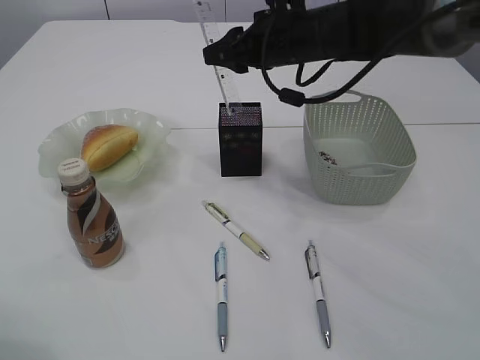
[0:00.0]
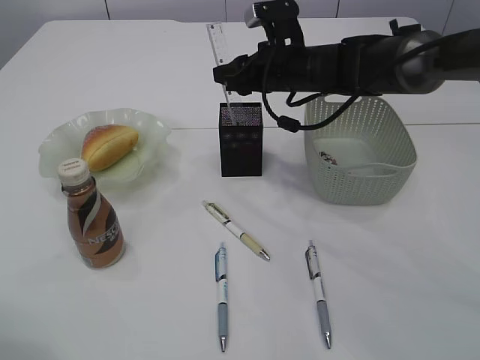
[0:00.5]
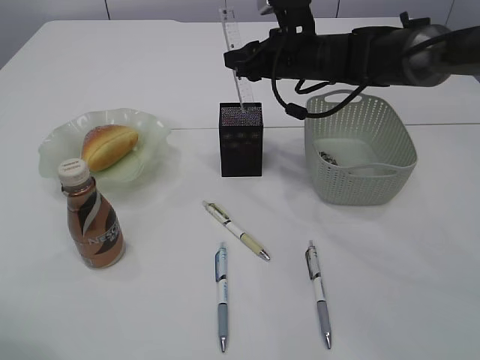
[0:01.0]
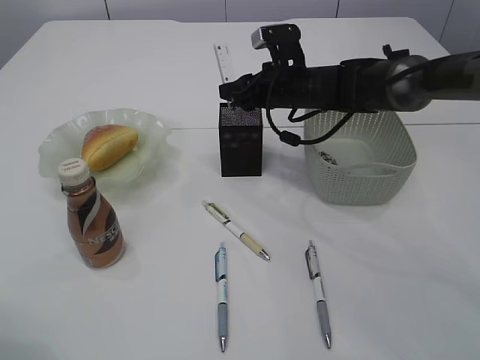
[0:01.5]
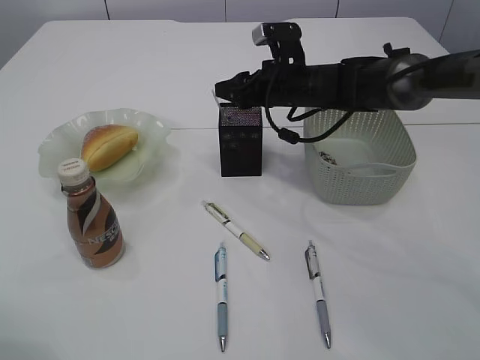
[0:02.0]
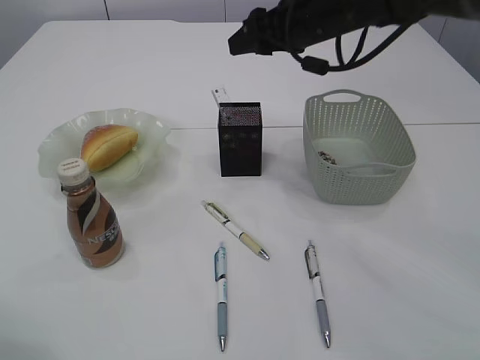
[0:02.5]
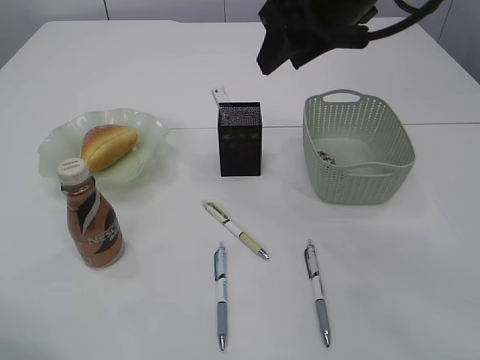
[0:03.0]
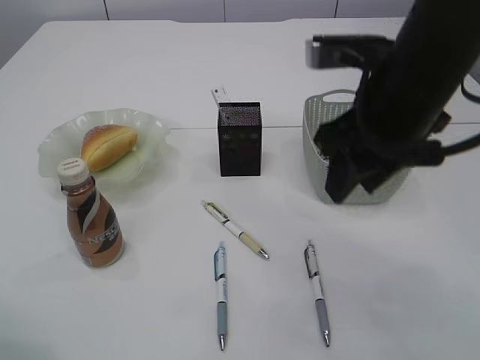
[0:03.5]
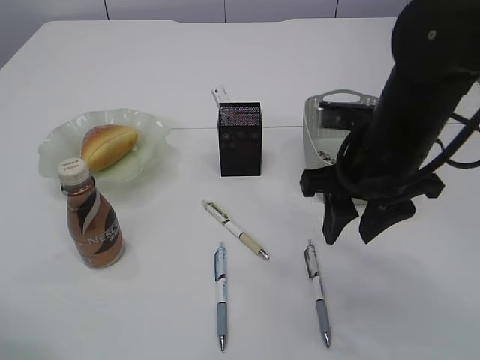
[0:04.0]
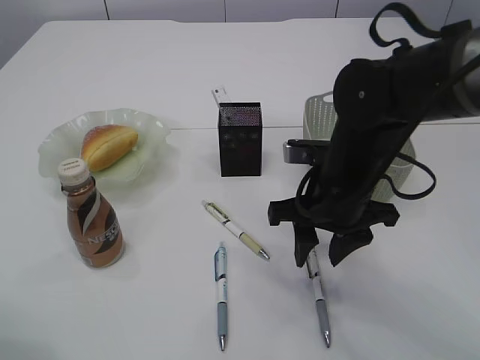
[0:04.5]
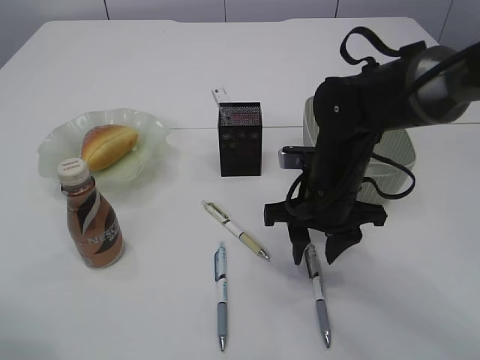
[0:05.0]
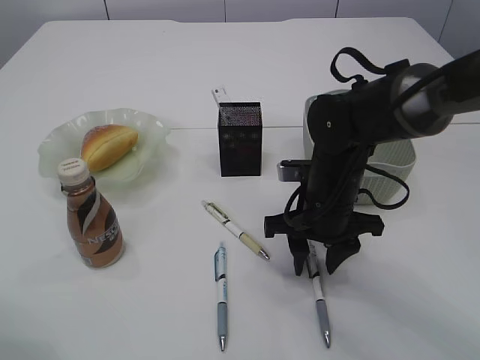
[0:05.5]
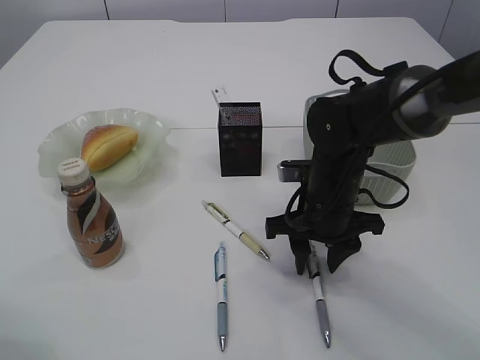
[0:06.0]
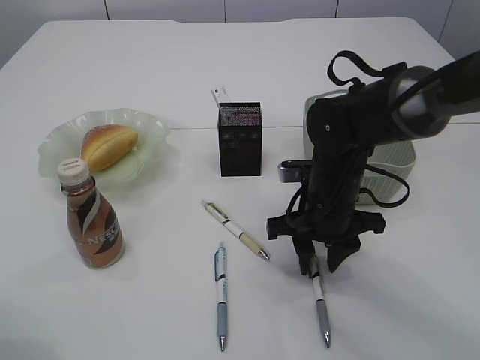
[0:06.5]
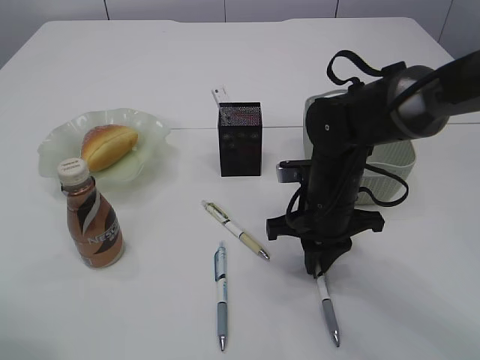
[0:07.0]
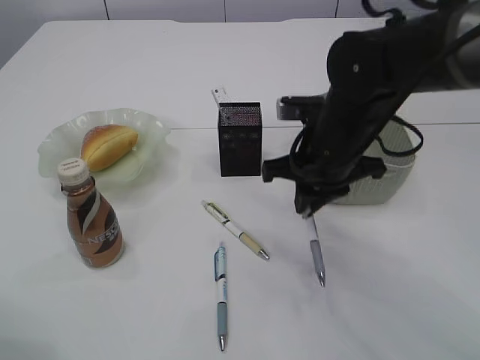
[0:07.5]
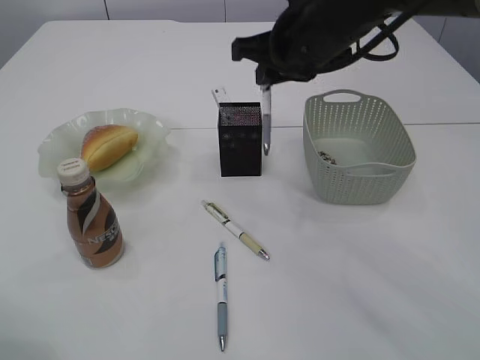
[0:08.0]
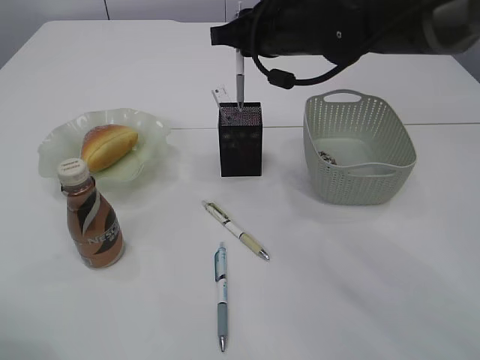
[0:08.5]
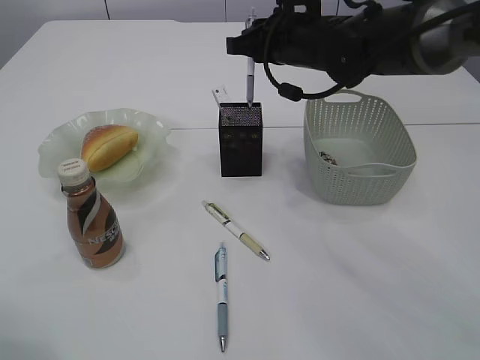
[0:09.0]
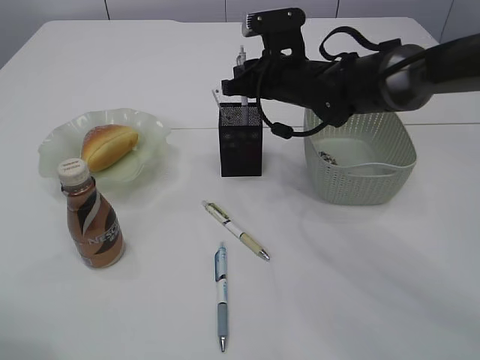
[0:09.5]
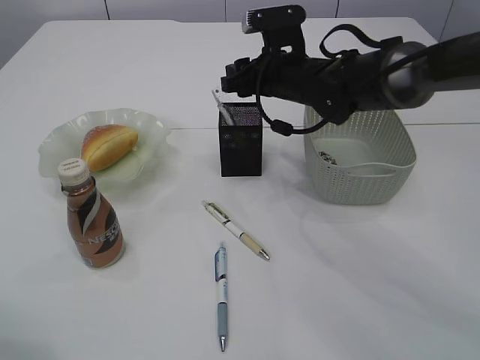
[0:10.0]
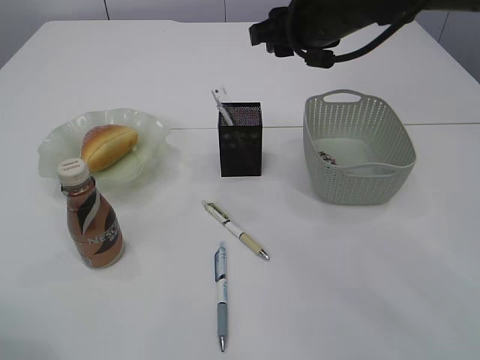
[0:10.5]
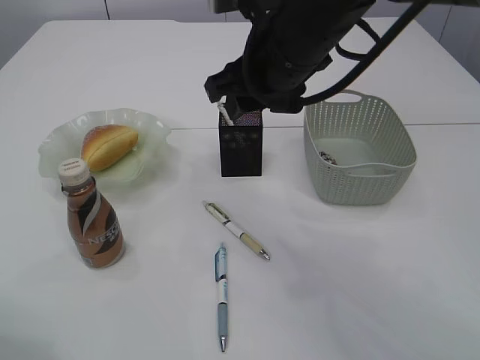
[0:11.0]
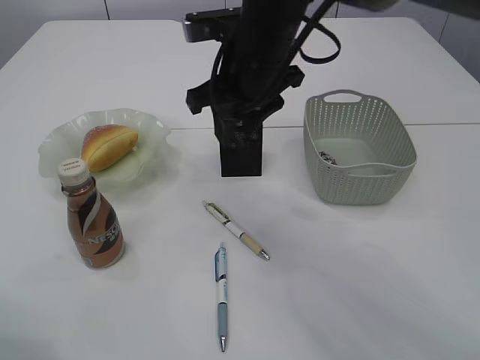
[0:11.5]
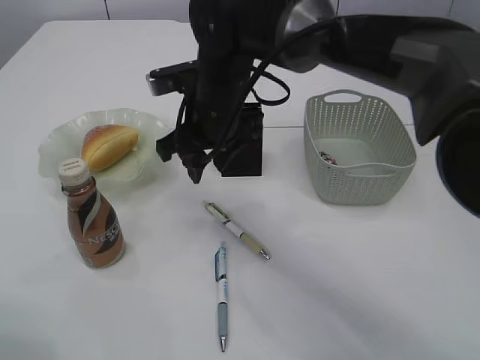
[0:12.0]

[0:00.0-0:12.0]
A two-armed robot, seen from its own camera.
Step, 0:00.0 to 0:02.5: Place the ruler into the pen holder.
Step, 0:03.0 to 0:07.5: Pick up the pen with right arm.
Step, 0:08.0 to 0:10.0: Place the pen into the pen holder.
0:00.0 to 0:02.0: The right gripper goes roughly 10 cm downward.
0:02.0 to 0:04.0: The right gripper moves backward, roughly 20 cm.
0:04.0 to 0:06.0: The right gripper shifts roughly 10 cm downward.
0:06.0 to 0:08.0: The right gripper shifts roughly 15 cm upward, and closes its fingers.
0:08.0 to 0:10.0: The right gripper is displaced downward and forward by about 10 cm, and opens up.
0:10.0 to 0:12.0: The right gripper heads to the left and backward, covering approximately 10 cm.

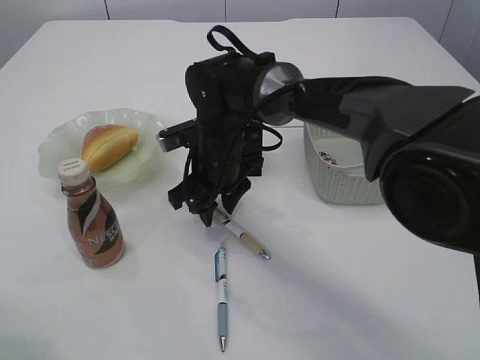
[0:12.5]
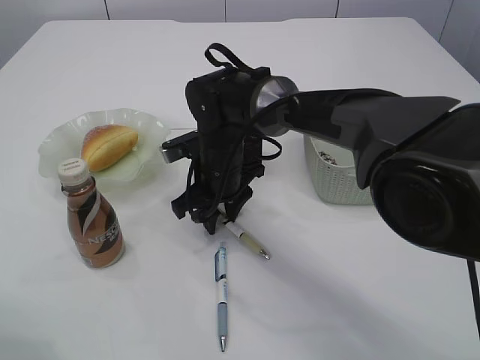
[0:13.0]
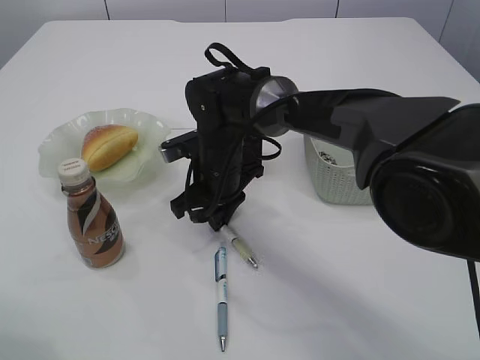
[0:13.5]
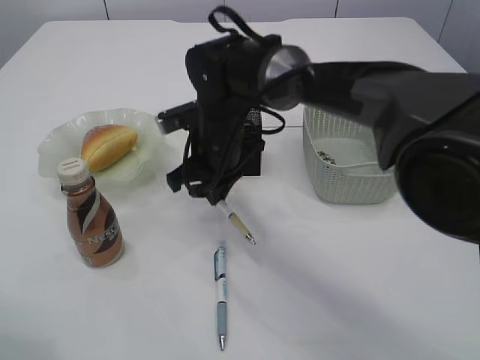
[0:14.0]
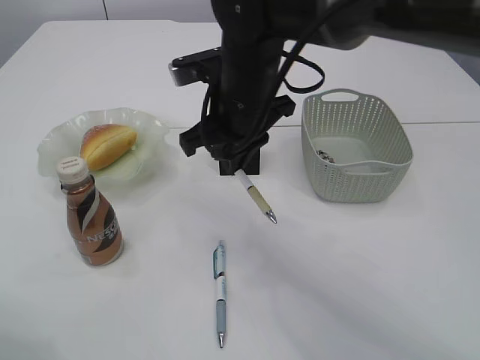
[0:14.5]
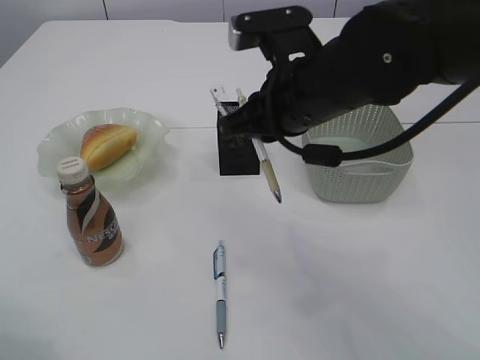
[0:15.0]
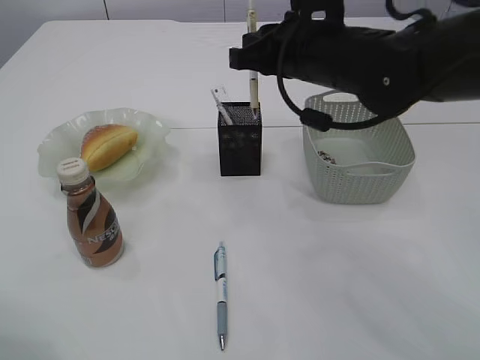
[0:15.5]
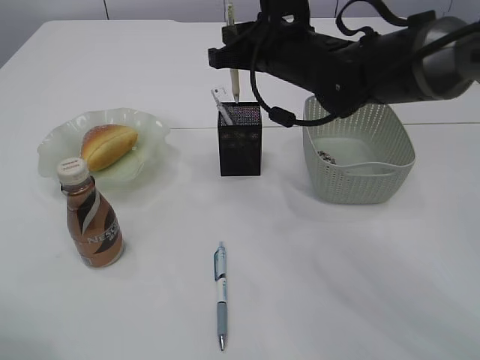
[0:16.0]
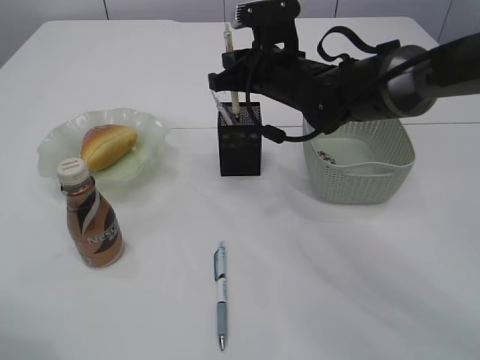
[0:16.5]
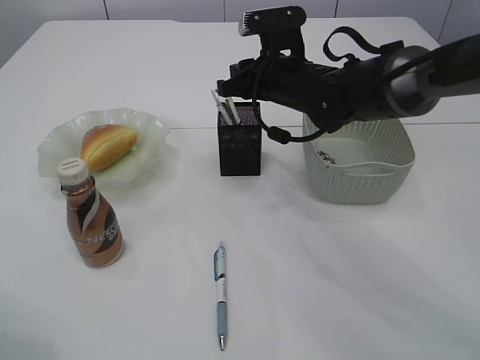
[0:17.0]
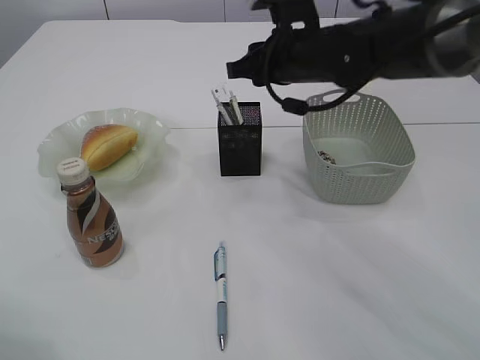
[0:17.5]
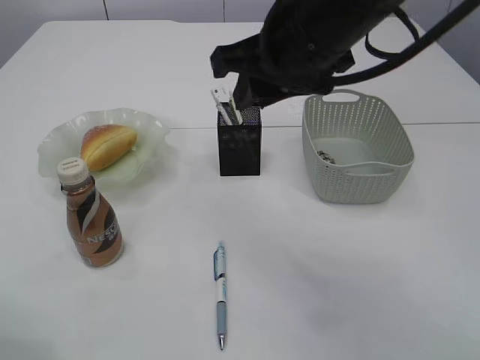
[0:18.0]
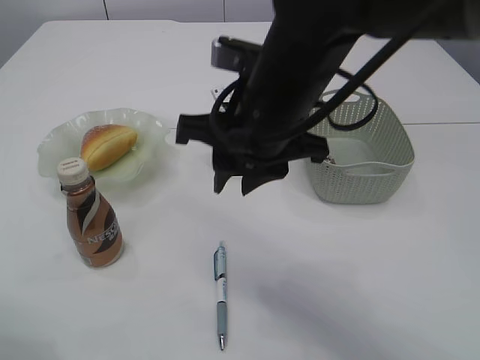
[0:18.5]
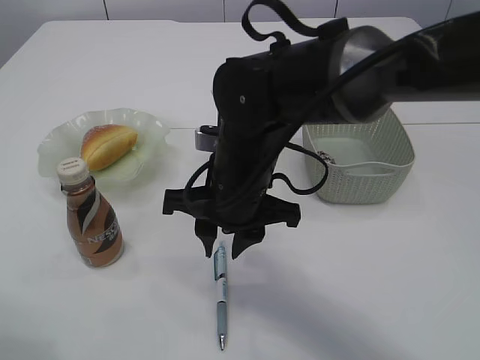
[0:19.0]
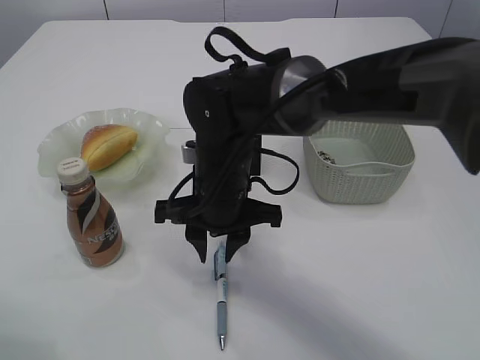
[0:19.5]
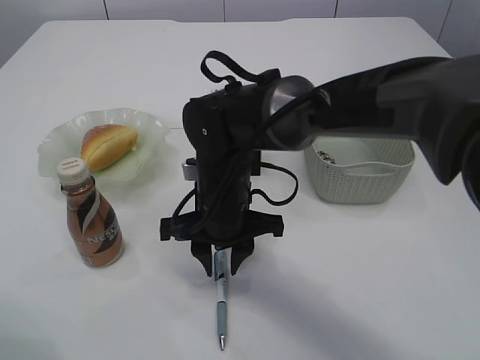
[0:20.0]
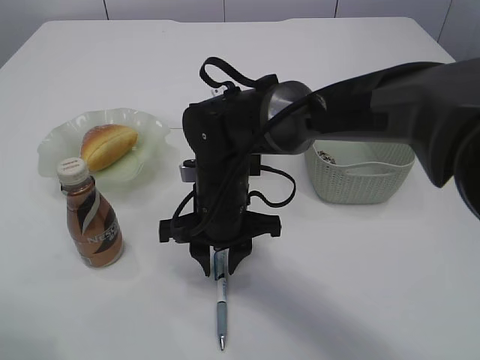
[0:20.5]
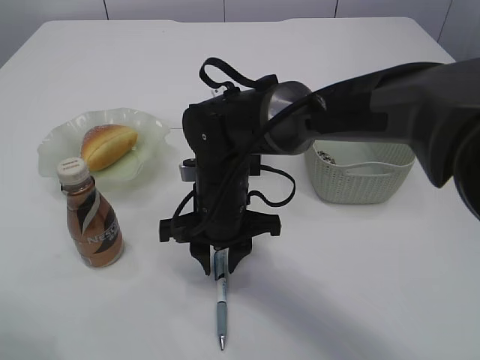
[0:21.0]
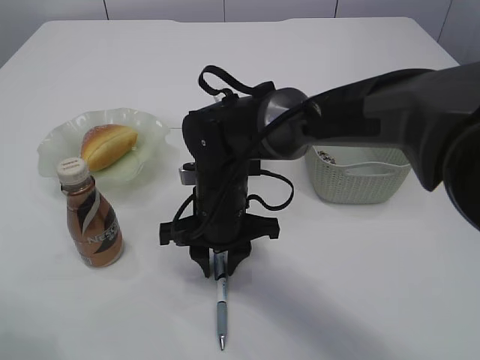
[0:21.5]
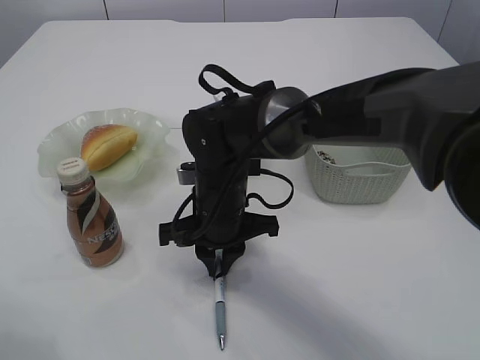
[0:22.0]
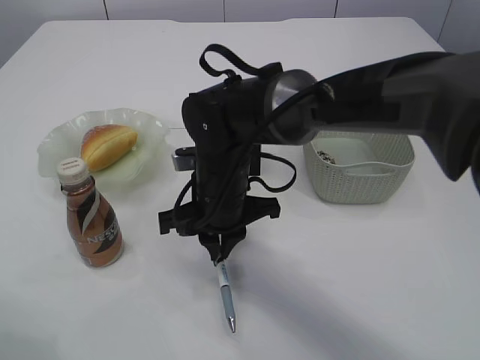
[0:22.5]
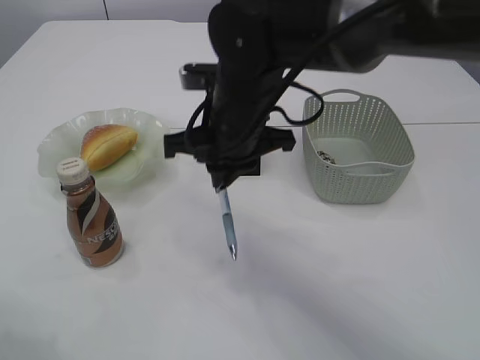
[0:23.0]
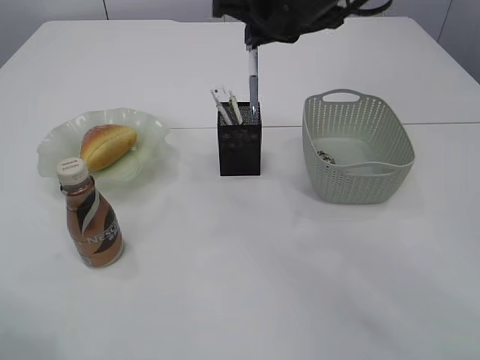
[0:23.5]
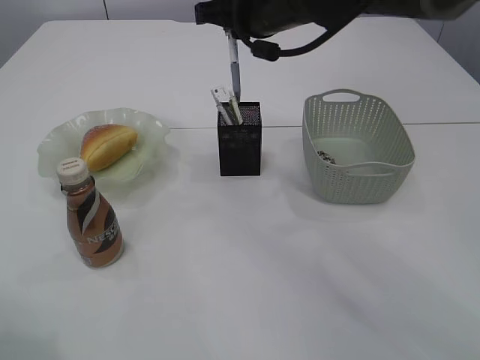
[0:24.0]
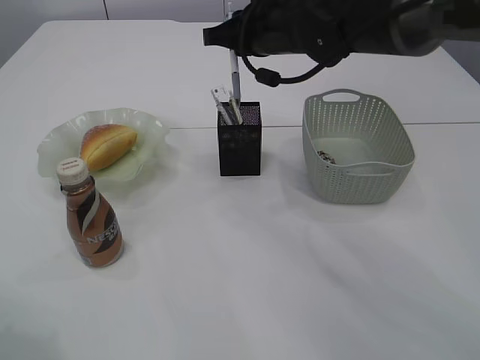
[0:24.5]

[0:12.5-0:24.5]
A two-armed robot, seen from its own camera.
Step, 0:12.5 to 0:14.5: Pick up the pen with right arm.
Step, 0:15.0 to 0:17.0: Place the pen into the pen holder.
Step, 0:17.5 to 0:23.0: Pick up the pen with right arm.
0:12.5 to 0:14.5: The right gripper is displaced upward by roughly 10 cm, and closes.
0:14.5 to 0:16.5: The right gripper travels forward and to the right by some 10 cm.
0:16.5 to 0:18.5: The right gripper goes some 15 cm backward, and opens its fingers.
0:18.5 to 0:20.5: The right gripper goes some 15 cm downward.
0:20.5 to 0:22.5: The right gripper closes.
0:22.5 to 0:24.5: The right gripper is displaced upward, forward and to the right by approximately 20 cm.

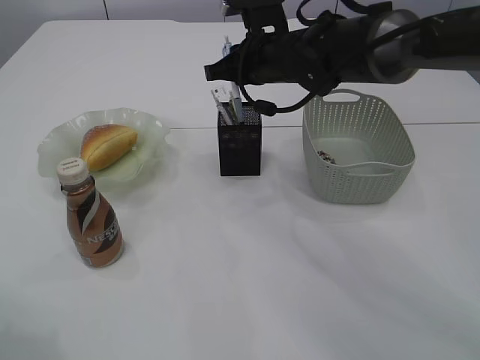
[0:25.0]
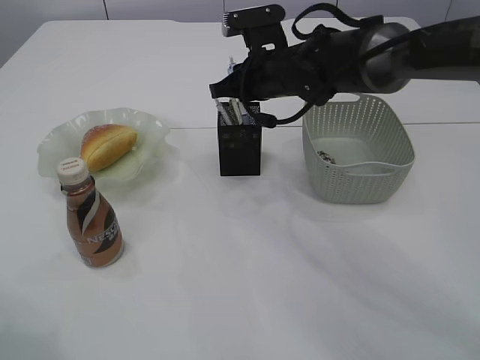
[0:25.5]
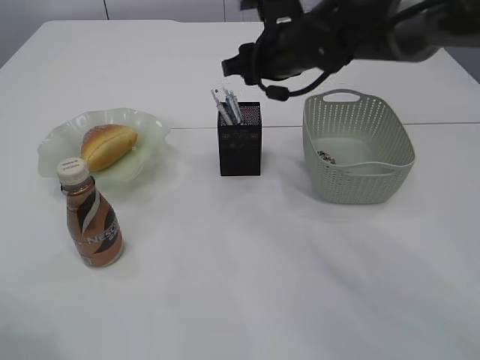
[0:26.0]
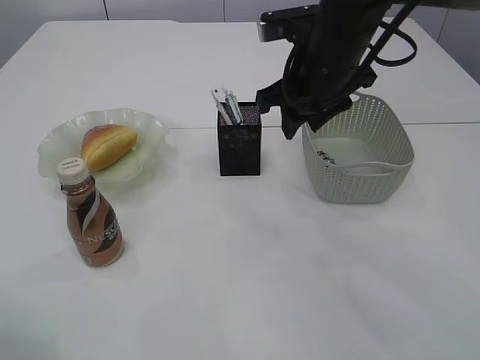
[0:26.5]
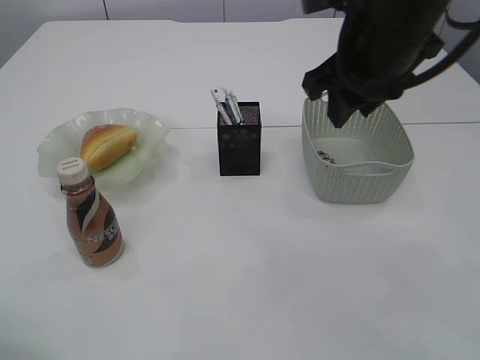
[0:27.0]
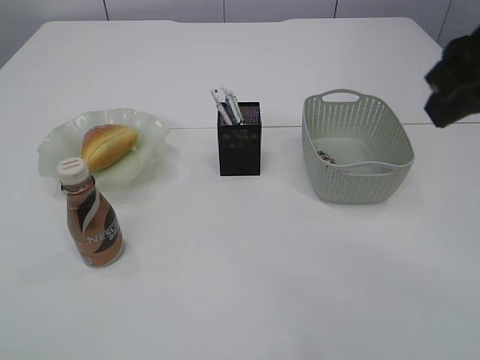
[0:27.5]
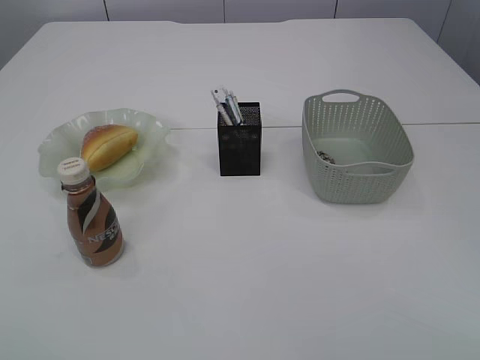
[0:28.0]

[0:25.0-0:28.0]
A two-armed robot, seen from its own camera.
0:25.0 to 0:26.5: The right gripper moves backward, roughly 10 cm, and opens its fingers.
0:26.5 to 0:28.0: The right gripper travels backward and to the right by about 30 cm. The left gripper heads backward, covering some 20 cm.
